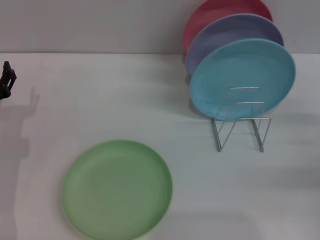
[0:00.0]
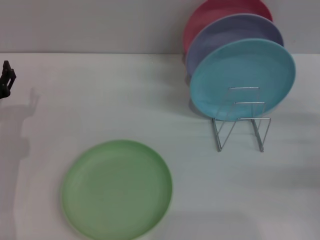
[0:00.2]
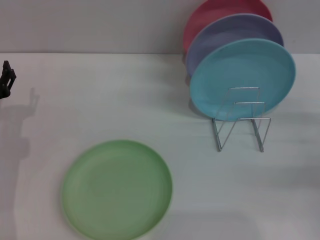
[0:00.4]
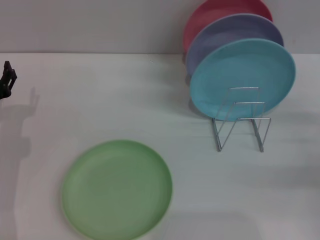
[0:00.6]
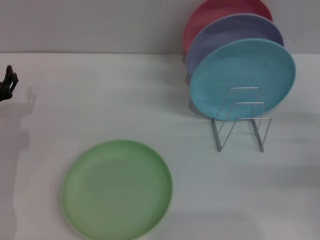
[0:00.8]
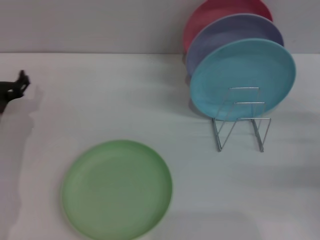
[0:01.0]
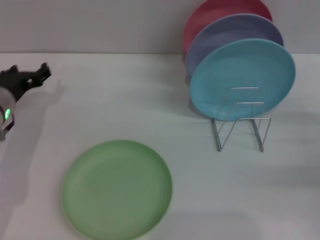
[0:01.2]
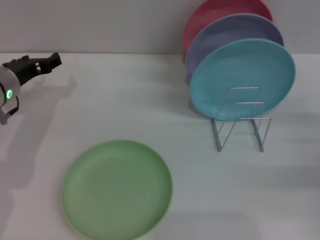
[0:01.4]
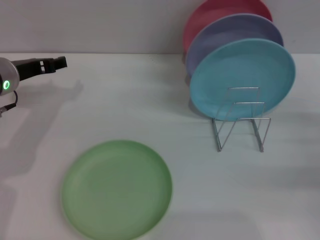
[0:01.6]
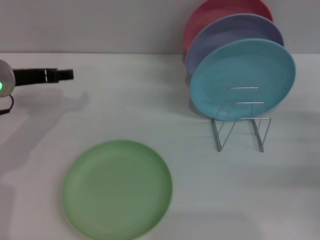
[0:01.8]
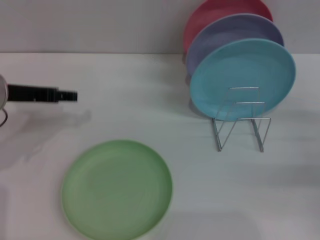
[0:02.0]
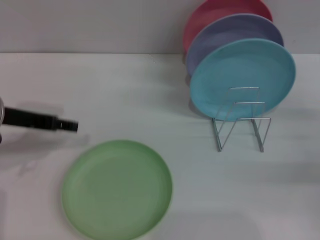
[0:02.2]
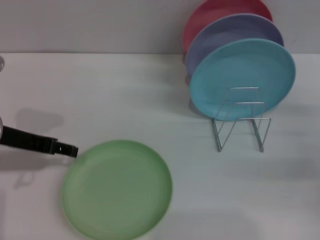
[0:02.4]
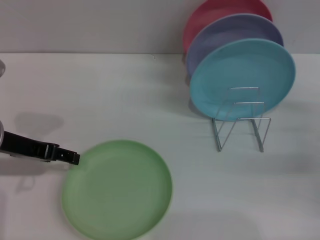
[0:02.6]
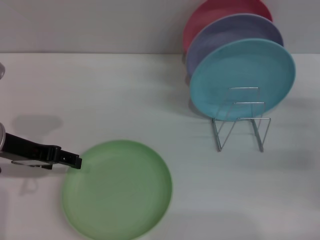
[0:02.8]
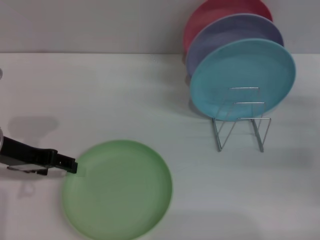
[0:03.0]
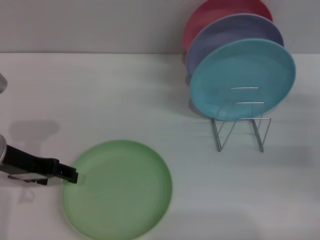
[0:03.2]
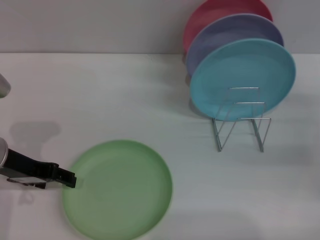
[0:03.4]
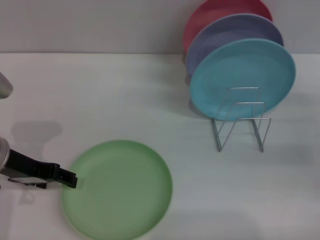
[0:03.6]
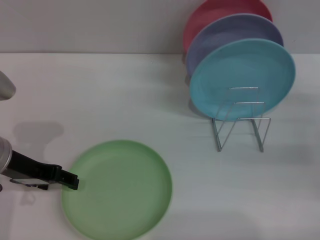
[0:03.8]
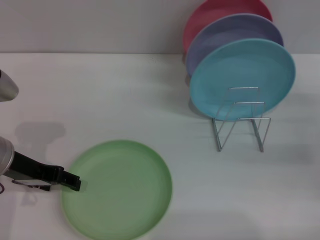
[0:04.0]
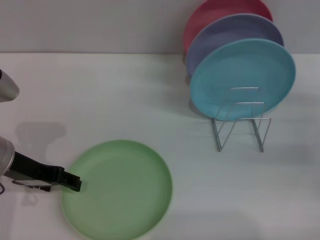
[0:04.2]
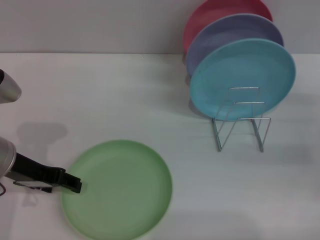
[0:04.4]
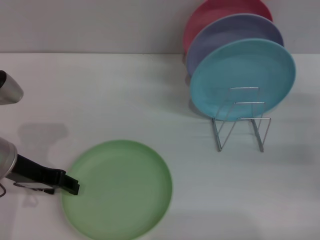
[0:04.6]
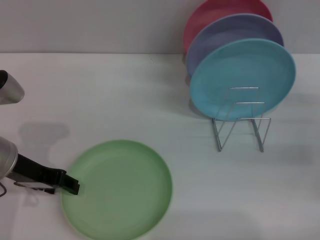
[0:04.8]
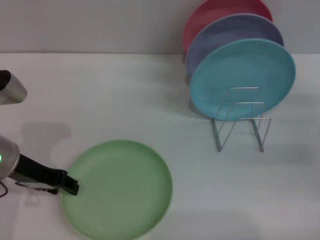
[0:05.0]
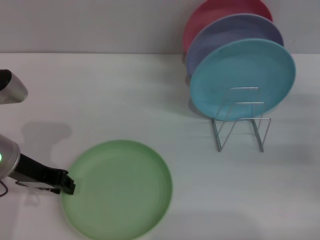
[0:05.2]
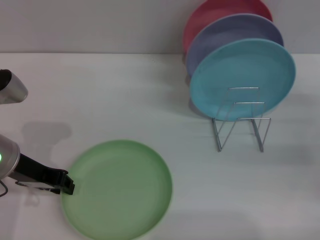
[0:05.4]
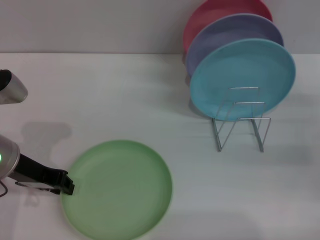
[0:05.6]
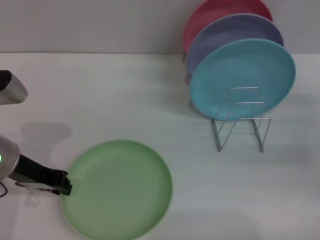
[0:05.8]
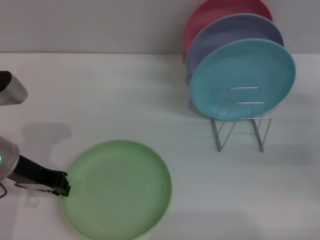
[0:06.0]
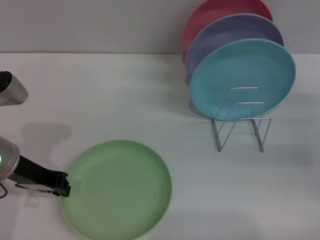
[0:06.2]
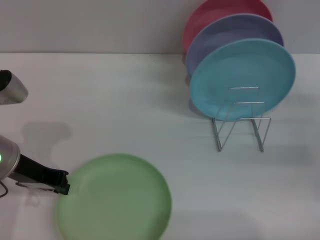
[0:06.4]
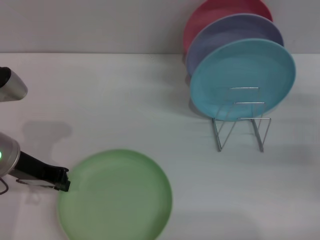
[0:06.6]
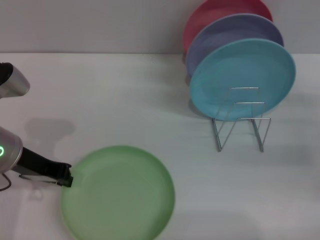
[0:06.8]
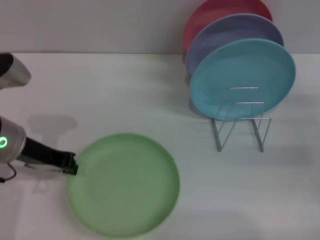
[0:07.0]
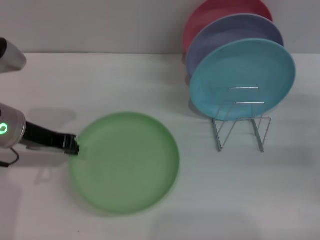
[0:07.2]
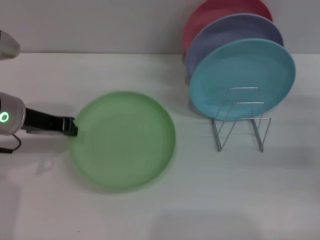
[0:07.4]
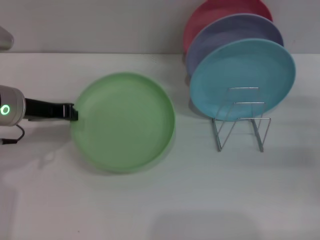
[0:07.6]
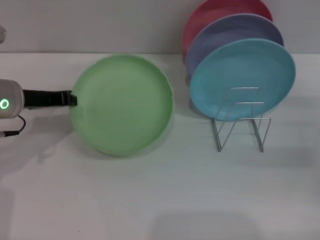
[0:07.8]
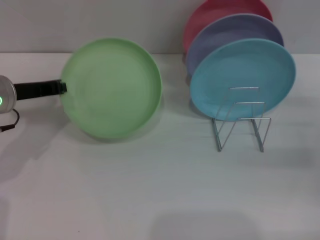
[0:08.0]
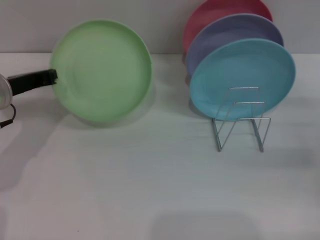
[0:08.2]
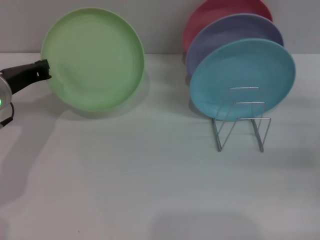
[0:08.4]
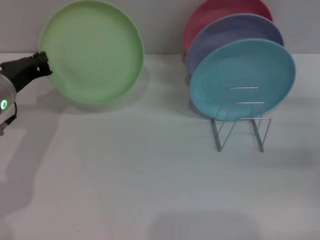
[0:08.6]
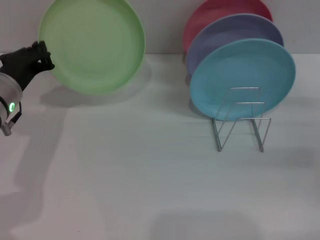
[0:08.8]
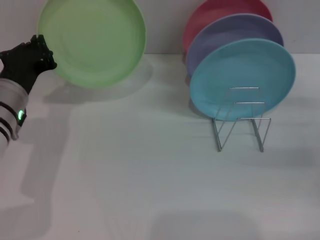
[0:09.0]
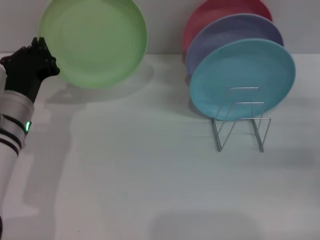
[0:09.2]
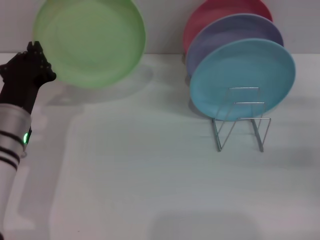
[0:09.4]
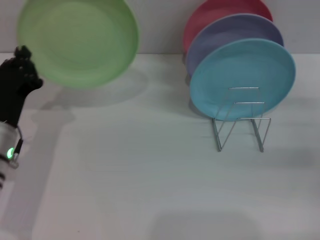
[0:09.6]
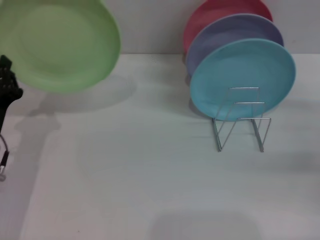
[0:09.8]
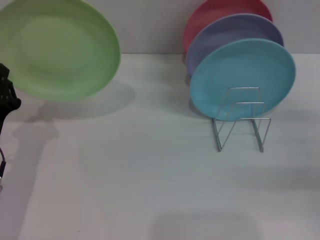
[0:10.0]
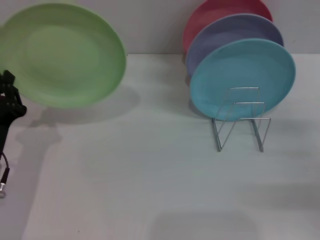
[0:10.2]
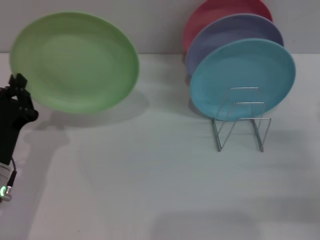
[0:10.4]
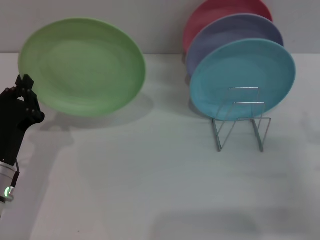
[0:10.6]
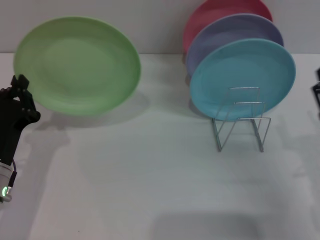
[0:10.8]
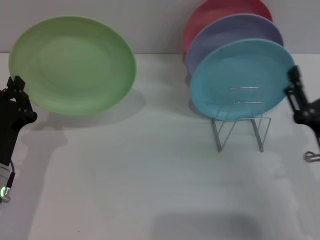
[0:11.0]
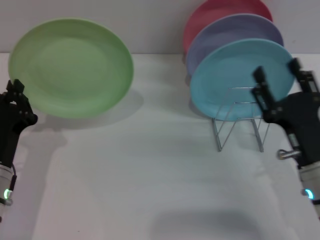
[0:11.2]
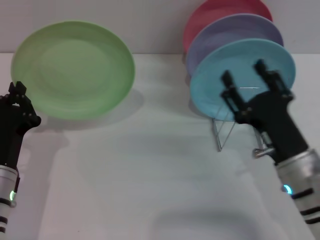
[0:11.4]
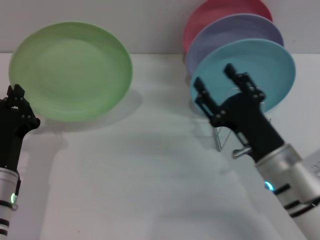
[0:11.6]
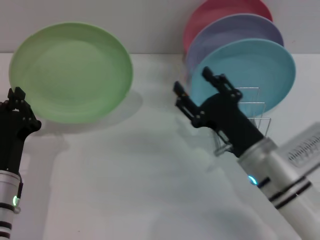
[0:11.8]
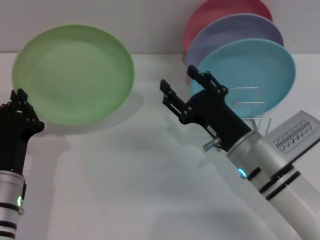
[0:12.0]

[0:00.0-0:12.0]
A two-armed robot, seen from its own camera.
Task of the whole recording: Grip the plate with one hand, pass it to the other, then set it on the shelf.
Step, 0:00.0 to 0:08.8: Pick up the plate with the left gripper.
0:00.0 to 0:01.6: The left gripper is displaced upward and forward by roughly 10 cm.
0:01.6 to 0:03.0: The left gripper goes about 10 cm backward.
0:03.0 to 0:04.4: The grippers stay close to where they were, moving slightly.
0:04.4 to 0:06.0: The left gripper closes.
0:06.0 to 0:07.6: The left gripper shifts by some 5 cm.
0:07.6 to 0:09.0: The left gripper ends up some 5 cm from where it was.
0:09.0 to 0:10.4: The right gripper goes roughly 10 cm backward; the left gripper is displaced backward and downward by roughly 10 cm.
0:10.4 to 0:12.0: The right gripper goes some 20 cm to the left.

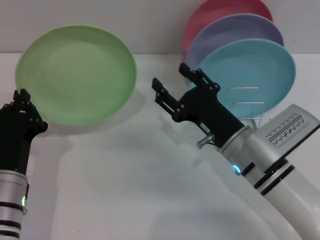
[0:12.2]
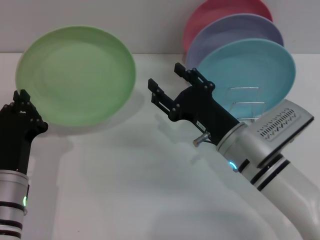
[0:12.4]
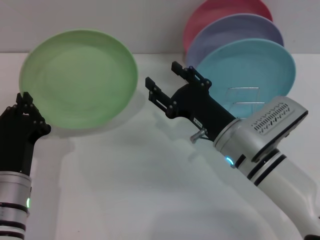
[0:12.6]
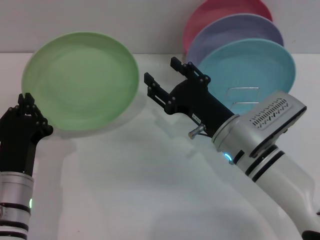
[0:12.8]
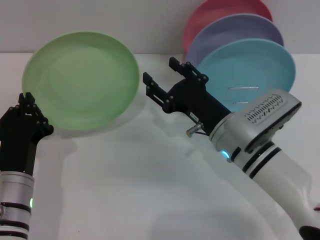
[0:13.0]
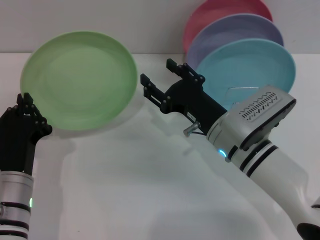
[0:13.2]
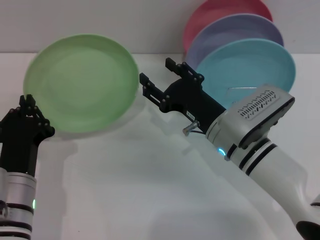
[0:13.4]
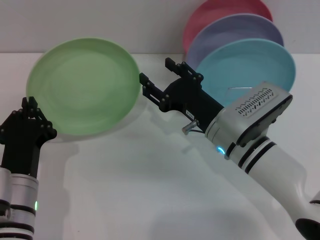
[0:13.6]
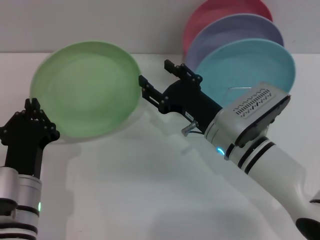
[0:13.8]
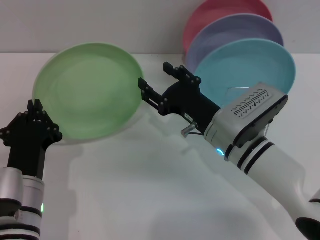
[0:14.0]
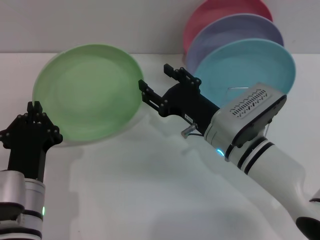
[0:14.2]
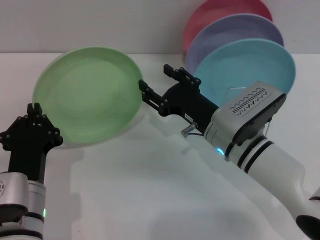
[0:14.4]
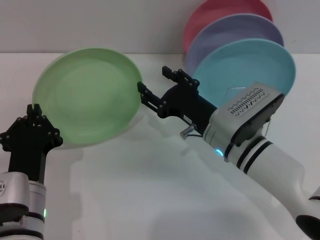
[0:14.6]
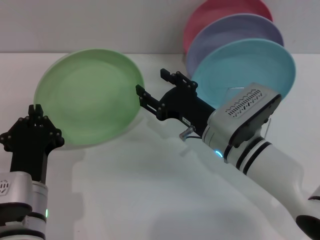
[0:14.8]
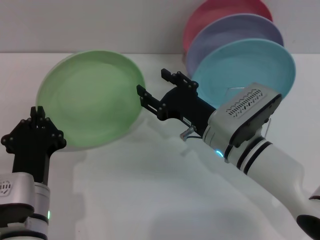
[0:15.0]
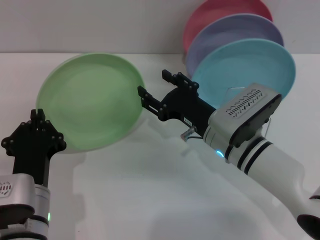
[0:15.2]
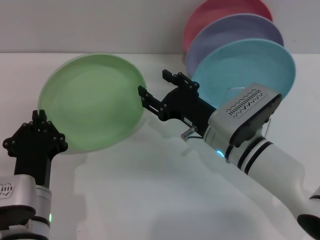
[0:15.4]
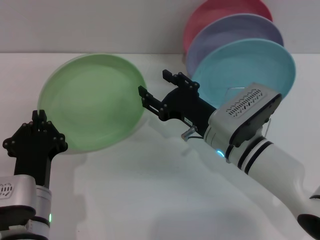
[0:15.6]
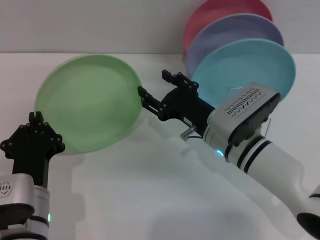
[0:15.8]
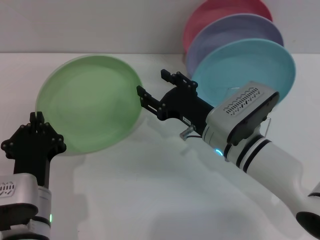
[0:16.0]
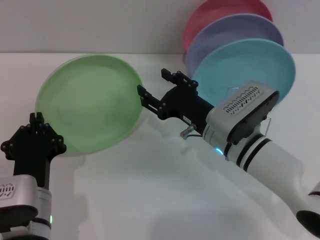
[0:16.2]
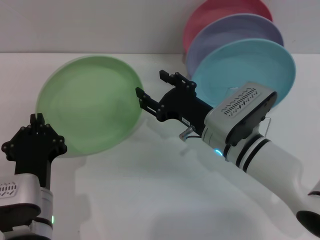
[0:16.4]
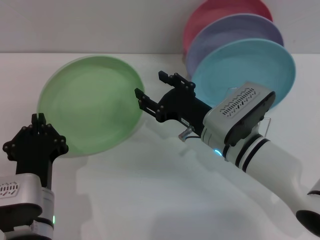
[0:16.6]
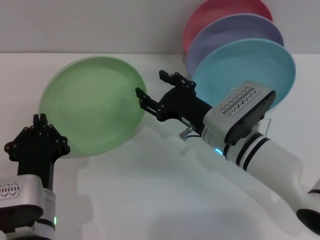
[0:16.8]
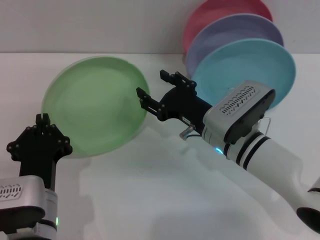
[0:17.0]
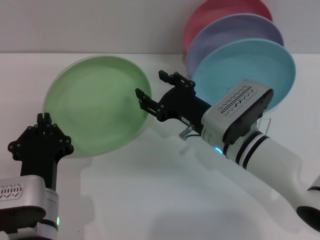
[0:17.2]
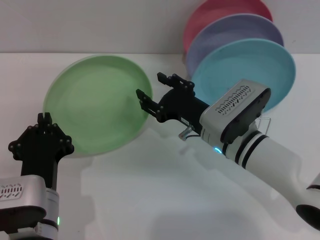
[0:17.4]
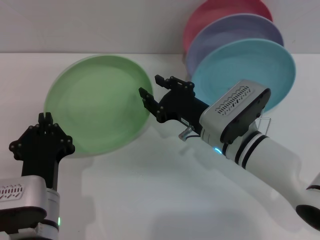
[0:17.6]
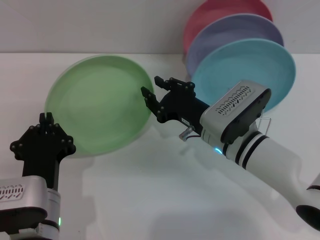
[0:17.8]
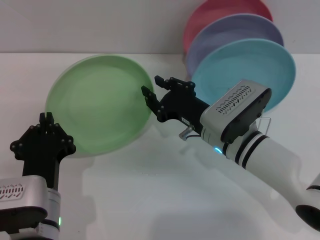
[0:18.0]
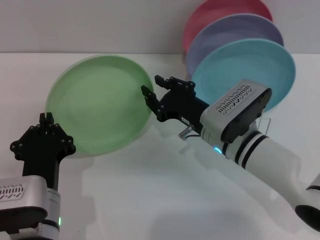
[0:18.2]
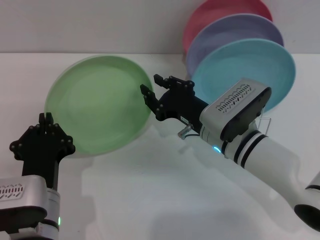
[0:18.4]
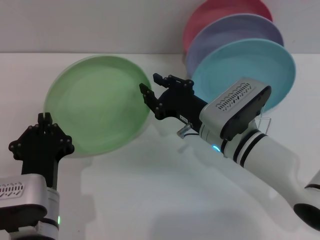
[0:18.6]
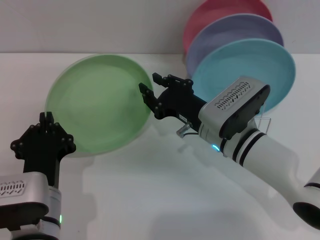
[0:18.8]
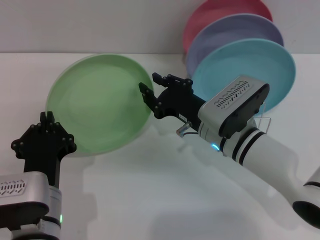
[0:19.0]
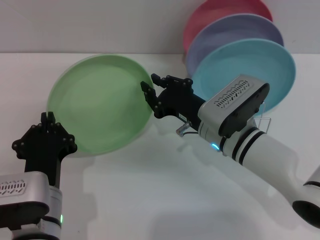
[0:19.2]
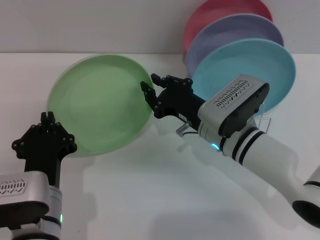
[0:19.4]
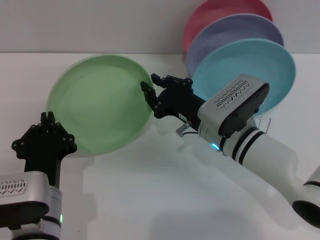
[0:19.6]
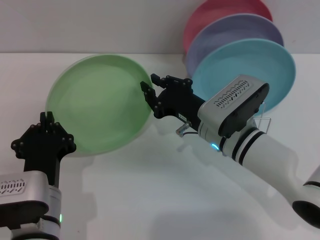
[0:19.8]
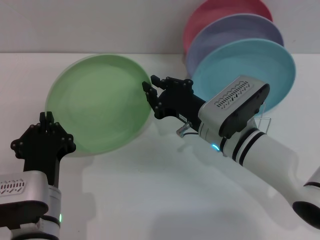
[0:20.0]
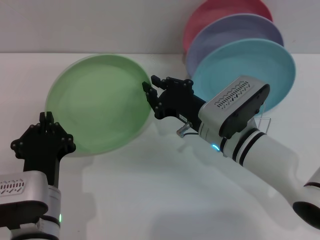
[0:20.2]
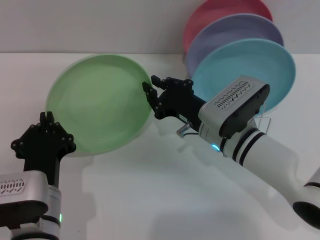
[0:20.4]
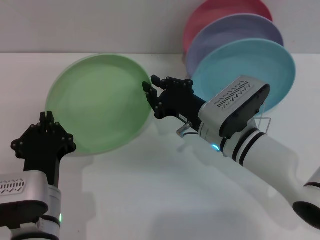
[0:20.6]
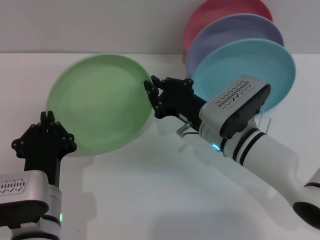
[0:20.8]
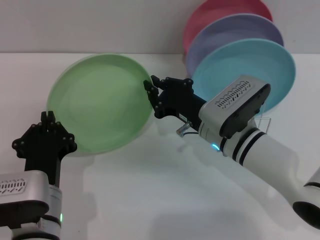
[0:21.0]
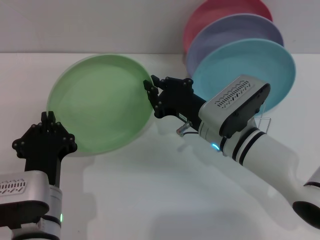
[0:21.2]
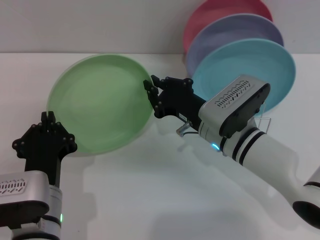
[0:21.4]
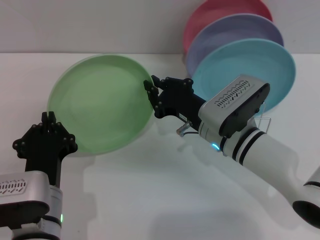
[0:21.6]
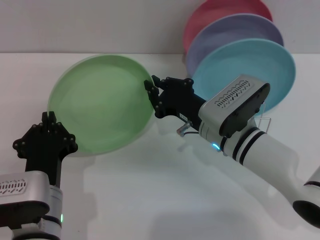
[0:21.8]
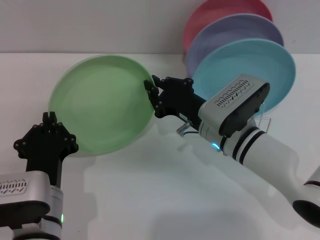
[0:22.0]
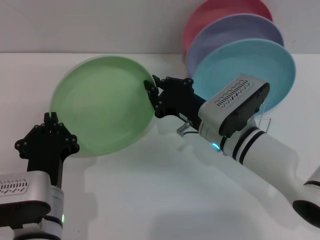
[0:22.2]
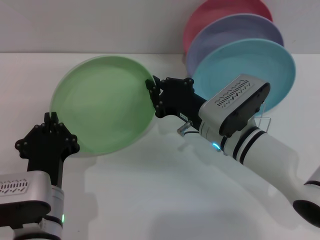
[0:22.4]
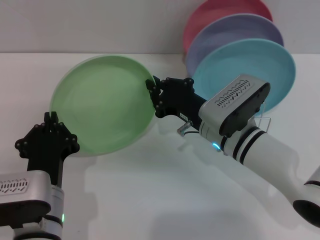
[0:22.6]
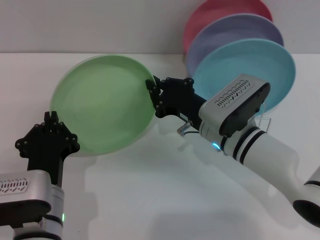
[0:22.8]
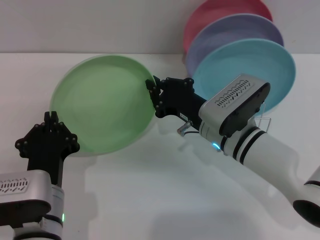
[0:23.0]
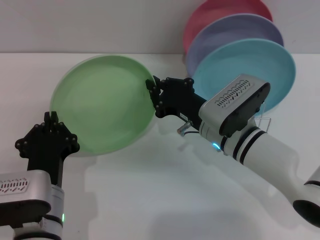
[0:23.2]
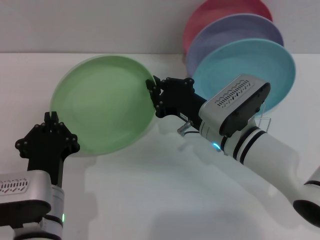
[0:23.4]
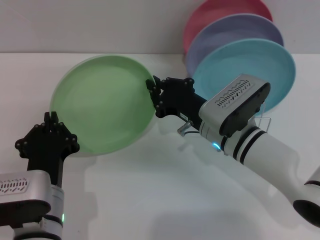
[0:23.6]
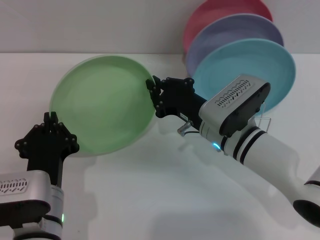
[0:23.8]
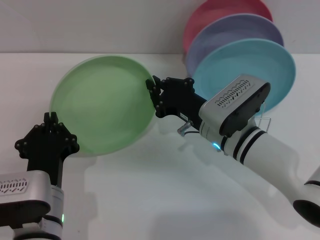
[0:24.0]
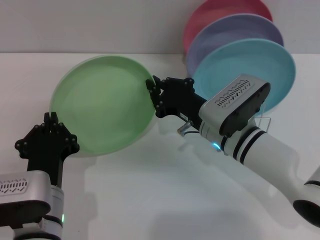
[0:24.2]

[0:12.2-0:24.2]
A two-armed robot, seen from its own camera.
Task of the whole recording: Grip the plate with one hand, pass it to the other, then set it on the shelf.
0:13.8 to 0:15.2: The grippers move only a little.
0:15.2 to 0:16.6: Both grippers stay about where they are.
0:16.6 to 0:18.2: The right gripper closes its fingers.
0:18.2 to 0:24.2: Neither gripper changes place.
